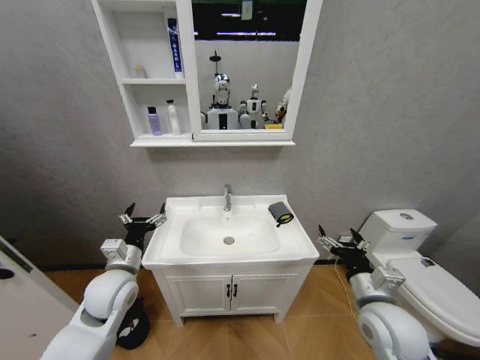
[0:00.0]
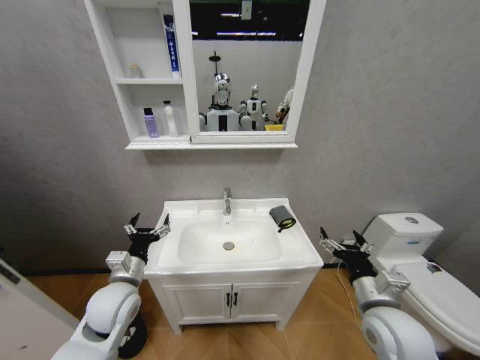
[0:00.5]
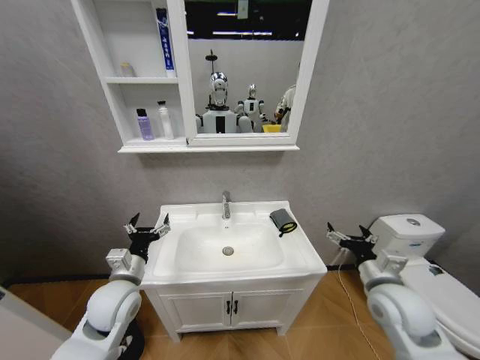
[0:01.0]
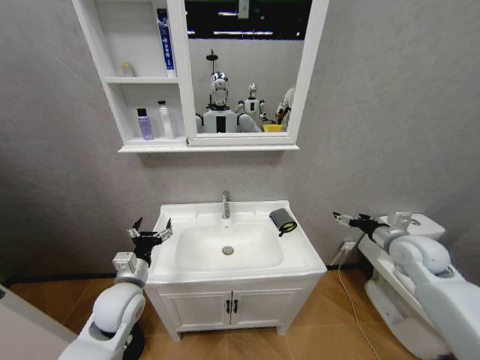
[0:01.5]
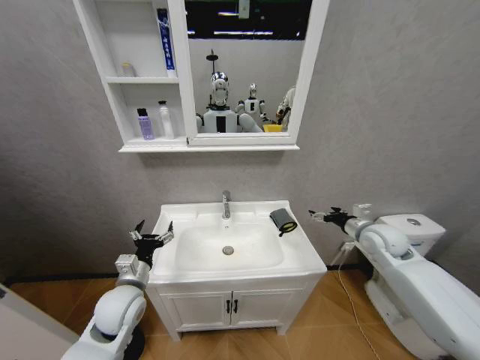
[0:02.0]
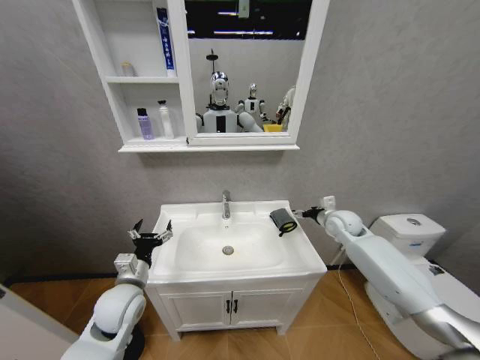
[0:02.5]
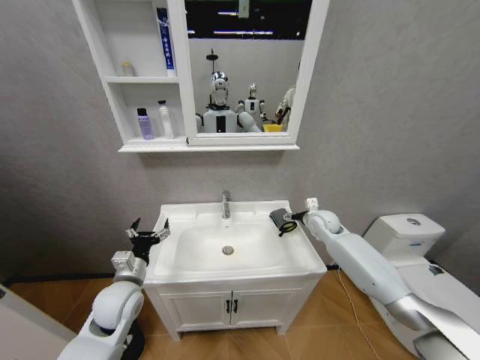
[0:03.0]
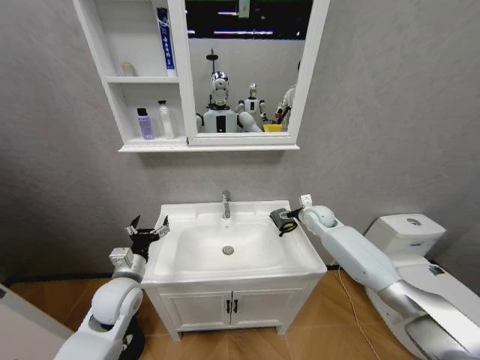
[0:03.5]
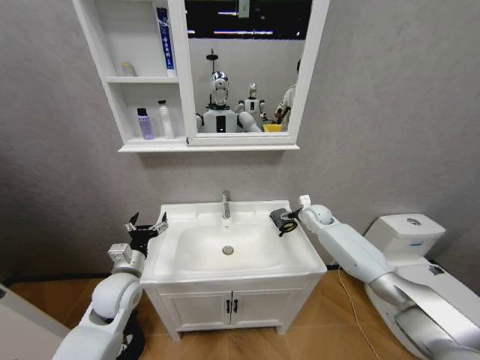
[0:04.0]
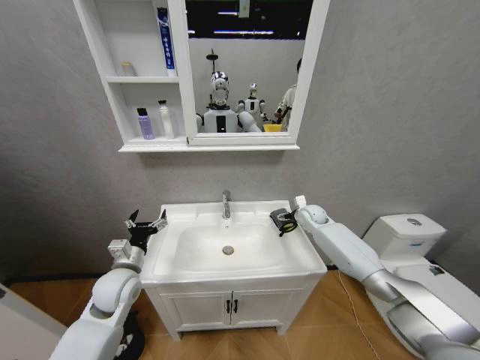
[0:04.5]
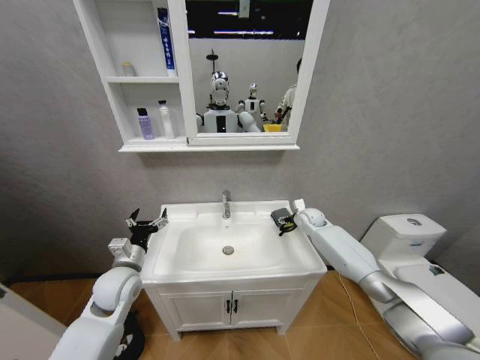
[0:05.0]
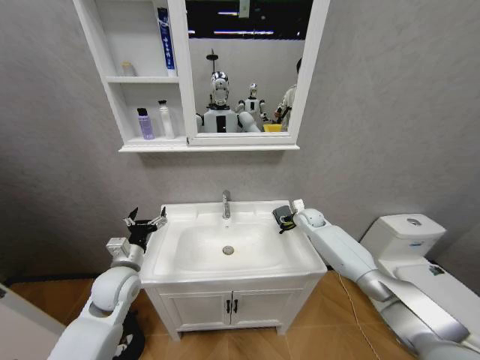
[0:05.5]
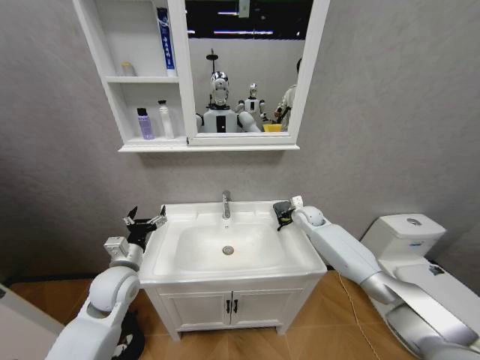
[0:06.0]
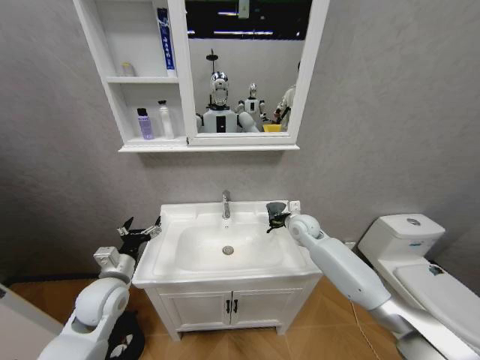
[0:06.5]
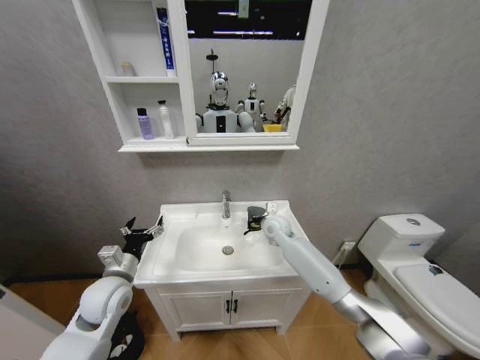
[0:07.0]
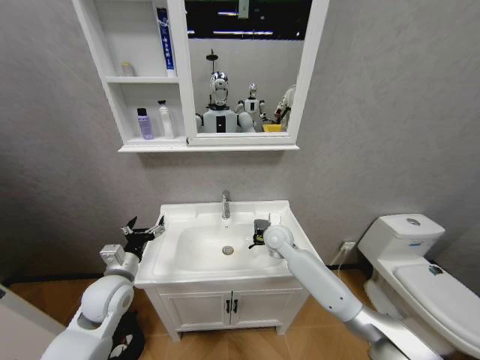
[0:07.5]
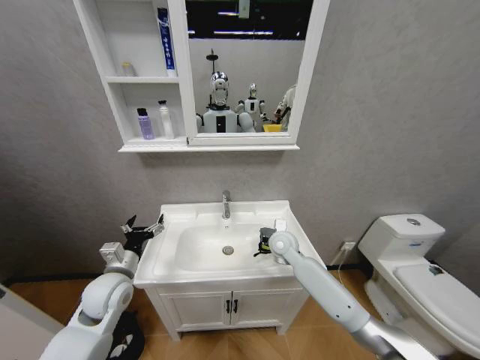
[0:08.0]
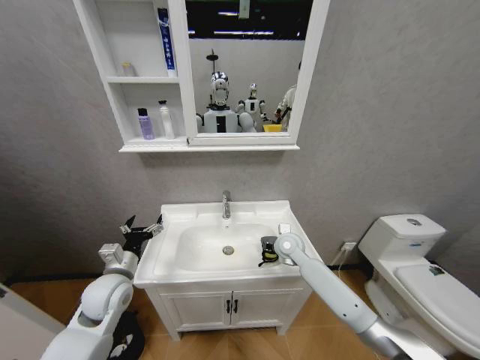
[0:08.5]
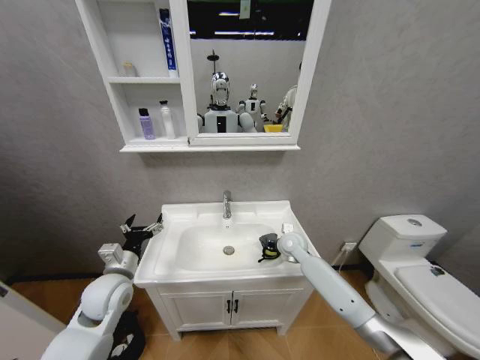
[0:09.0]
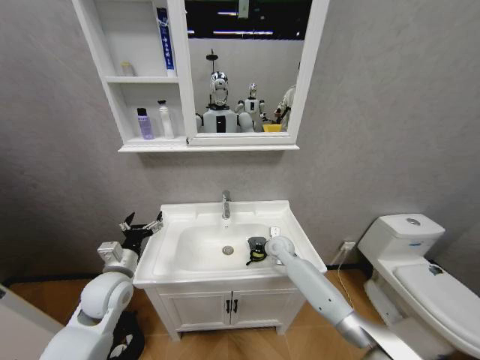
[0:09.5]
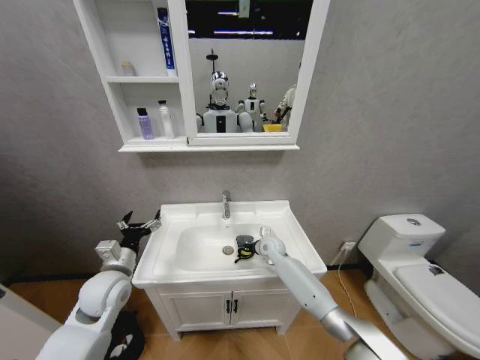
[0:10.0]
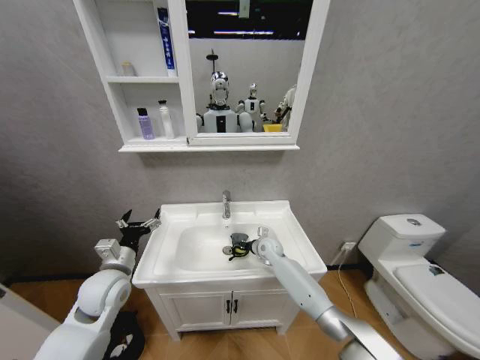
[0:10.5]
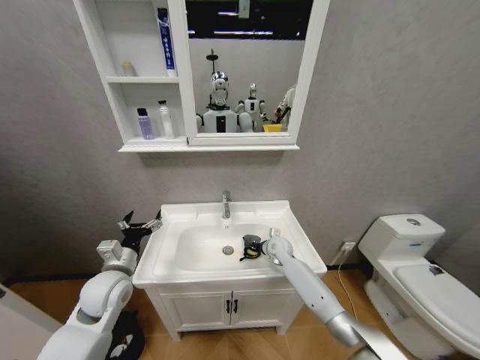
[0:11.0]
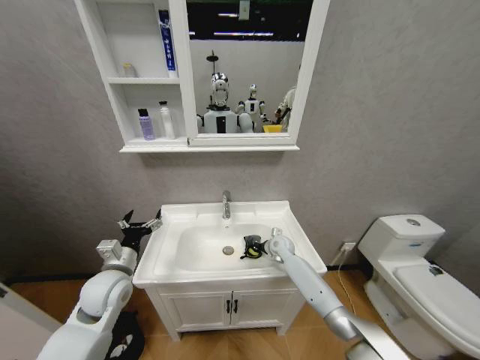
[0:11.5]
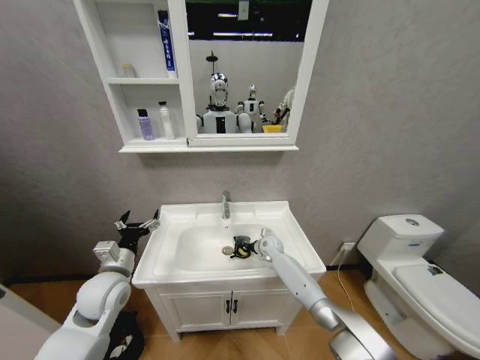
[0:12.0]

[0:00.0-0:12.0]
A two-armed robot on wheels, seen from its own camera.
Task of the whole recording: Move facial cleanser and shampoo from washbasin to cabinet, then wipe washbasin with towel.
0:00.0 to 0:02.0: The right gripper goes about 20 cm forward and to the right.
0:02.0 to 0:04.0: The right gripper shifts some 20 cm forward and to the left.
0:04.0 to 0:06.0: The right gripper closes.
0:06.0 to 0:08.0: The right gripper is displaced to the left and backward by approximately 20 cm.
0:08.0 to 0:10.0: The right gripper moves downward and forward, about 10 cm.
0:10.0 to 0:12.0: The grippers stay close to where they were, moving slightly.

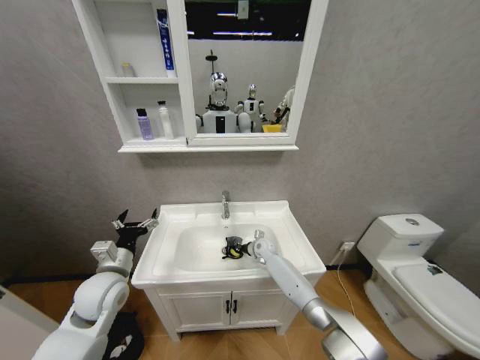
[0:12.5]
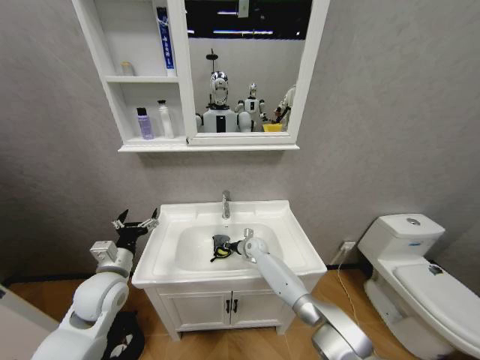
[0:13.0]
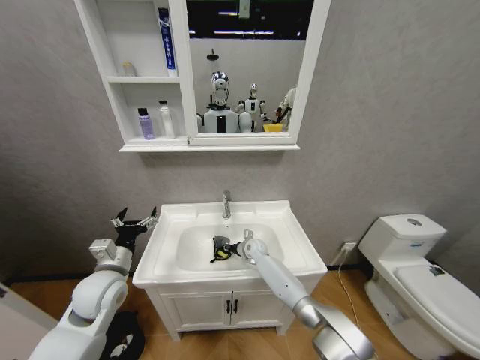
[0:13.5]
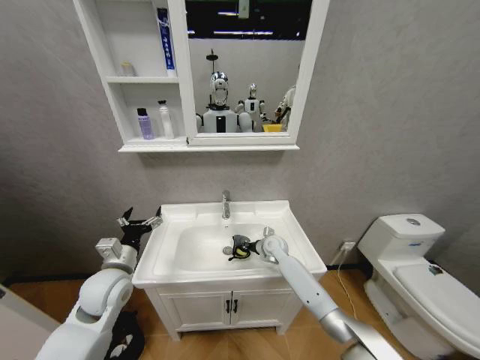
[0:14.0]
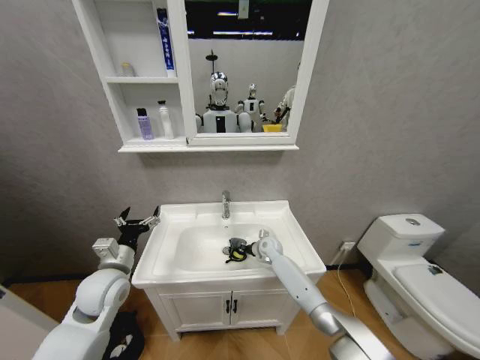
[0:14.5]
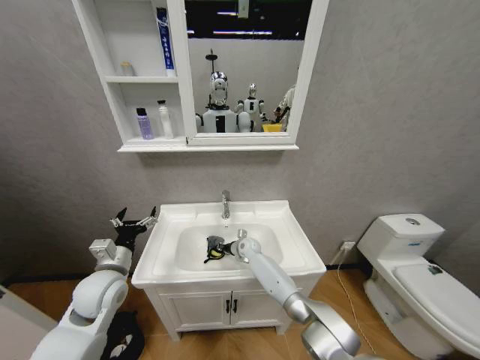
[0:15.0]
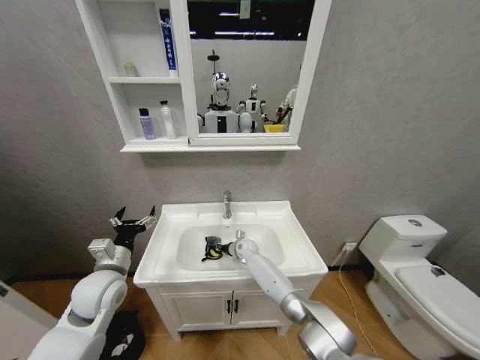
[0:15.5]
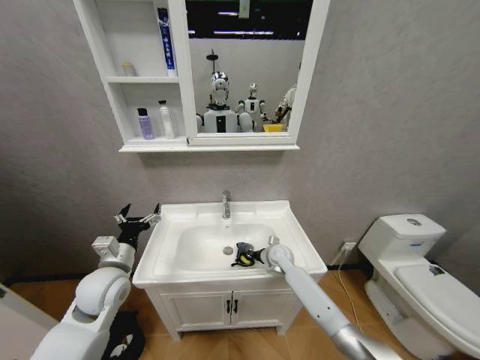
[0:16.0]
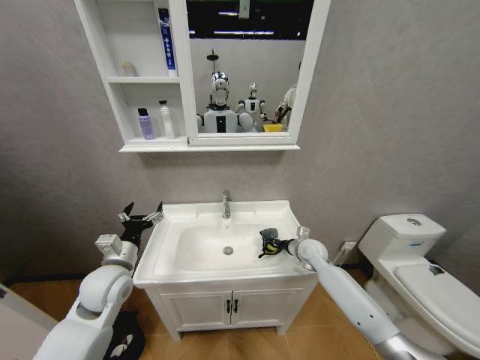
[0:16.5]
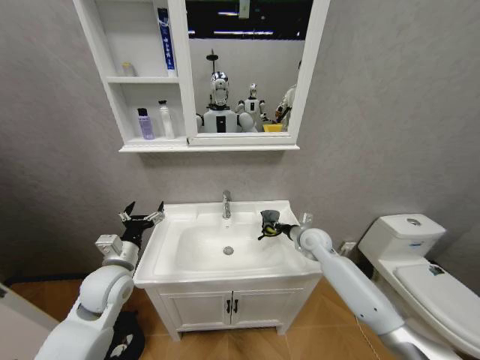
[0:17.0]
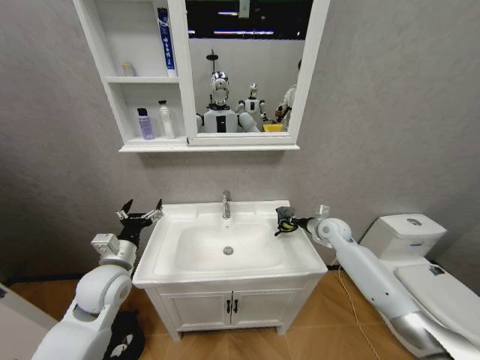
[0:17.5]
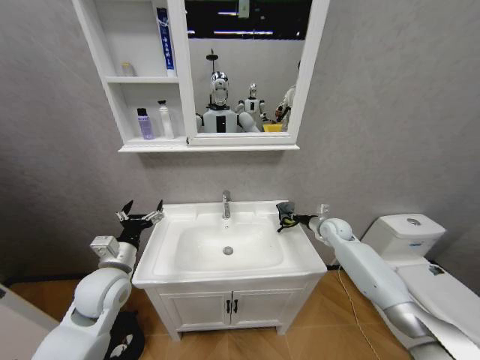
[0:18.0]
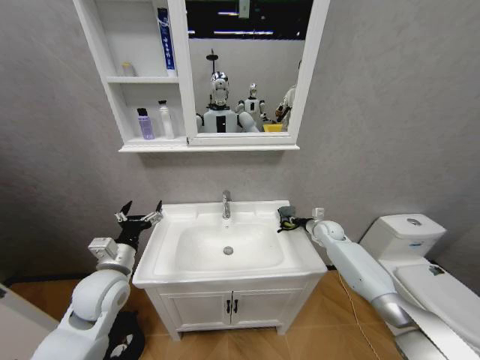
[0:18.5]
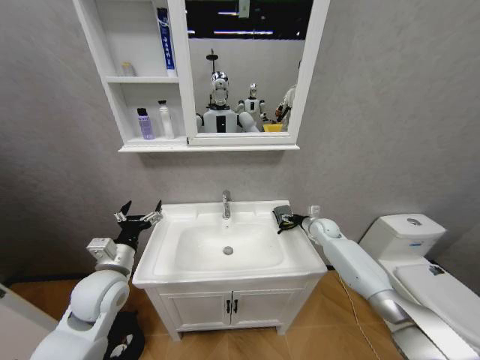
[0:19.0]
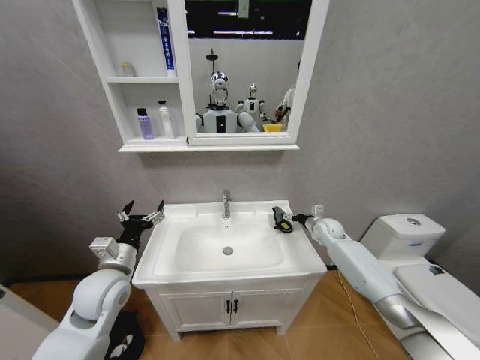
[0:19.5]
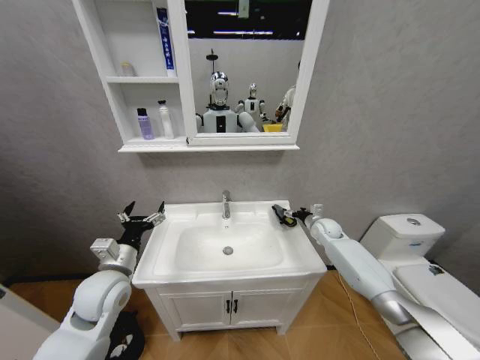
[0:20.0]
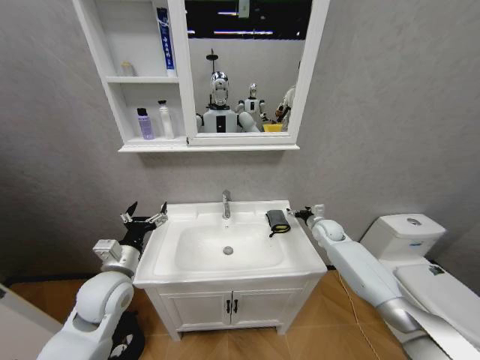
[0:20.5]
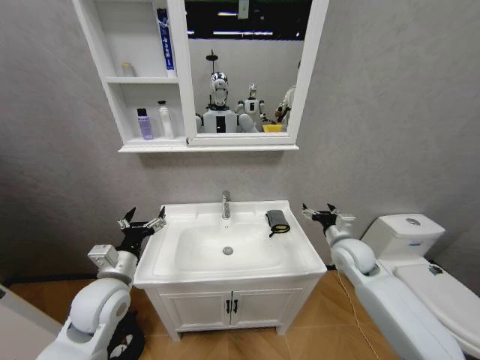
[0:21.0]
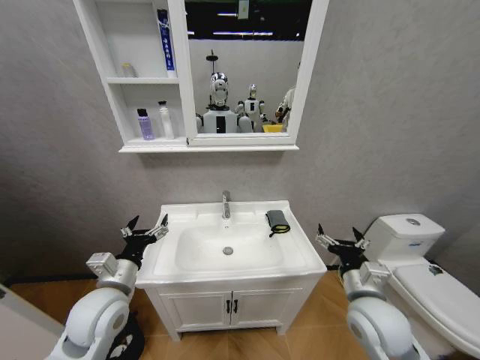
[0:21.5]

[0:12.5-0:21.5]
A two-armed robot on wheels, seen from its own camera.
Task of the whole recording: Move facial cleanser and shampoo from washbasin to cabinet, then wipe washbasin with towel.
0:14.5 to 0:17.0: The right gripper is displaced upward and to the right by approximately 20 cm.
0:17.0 to 0:19.5: The right gripper moves to the right and forward, approximately 10 cm, and opens up.
0:19.5 to 0:21.5: The right gripper goes about 30 cm backward.

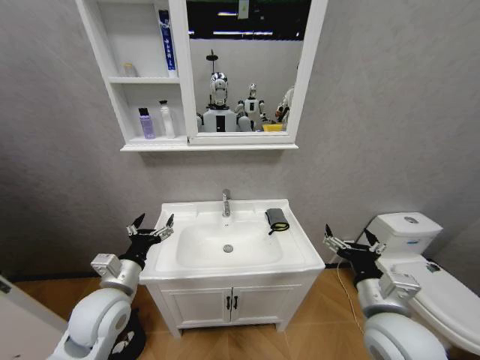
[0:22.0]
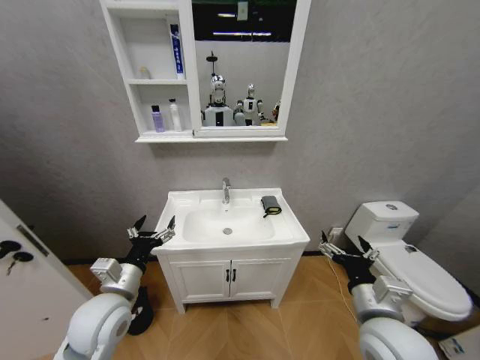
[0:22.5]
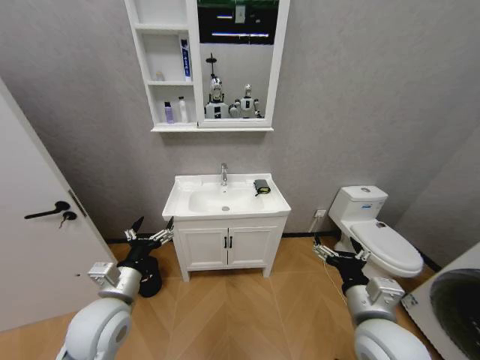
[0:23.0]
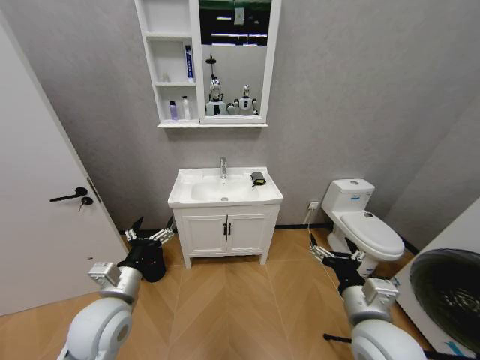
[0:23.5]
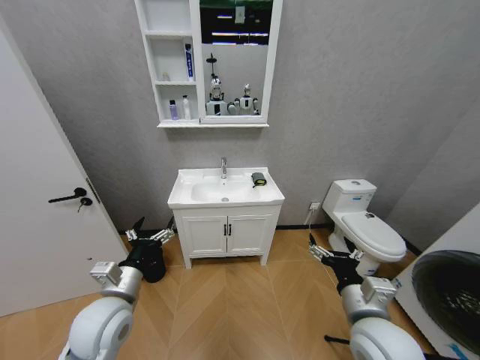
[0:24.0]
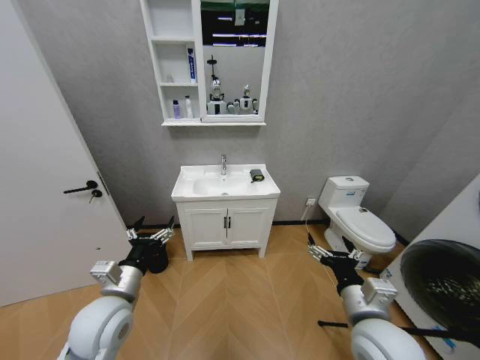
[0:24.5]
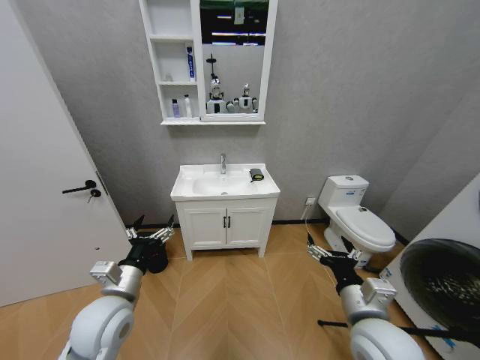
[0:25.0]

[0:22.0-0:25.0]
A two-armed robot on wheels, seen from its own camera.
Task of the whole recording: Move facial cleanser and shampoo from washbasin to cabinet, then wipe washbasin with towel.
0:23.5 to 0:25.0: The two grippers keep their place.

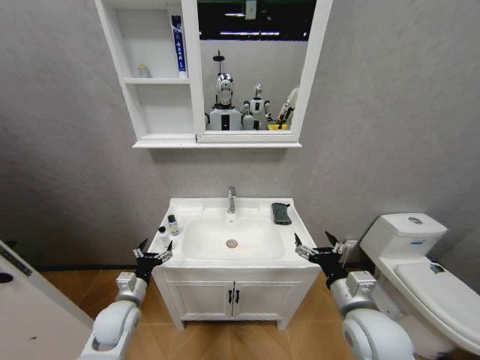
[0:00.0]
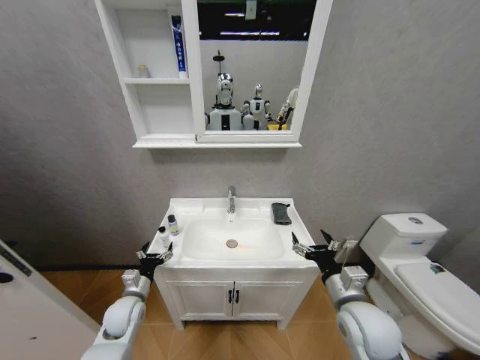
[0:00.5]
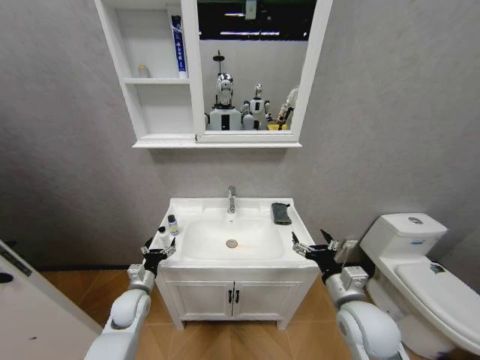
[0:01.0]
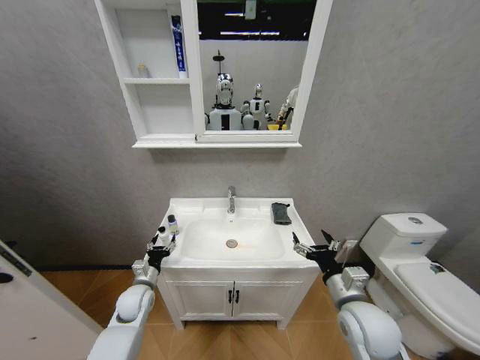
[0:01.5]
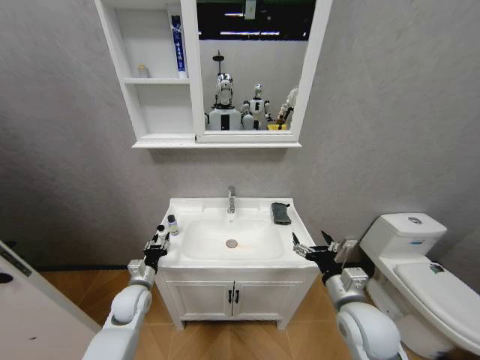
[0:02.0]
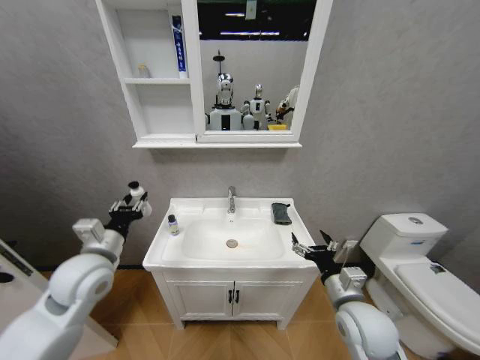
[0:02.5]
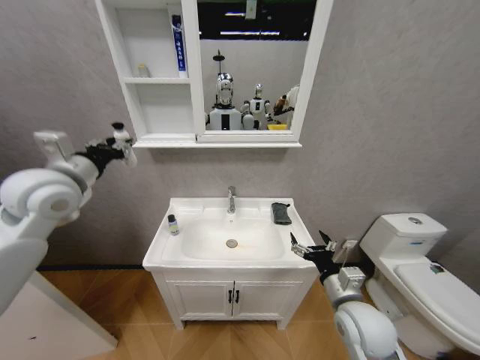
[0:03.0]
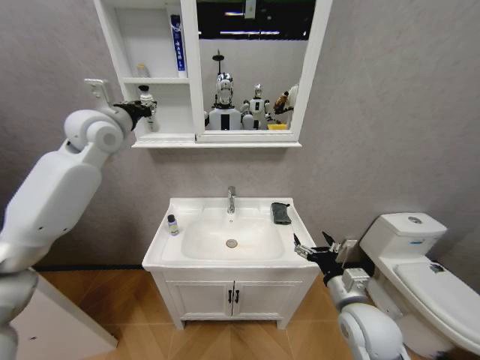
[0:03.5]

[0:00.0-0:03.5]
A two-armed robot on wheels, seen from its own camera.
Task of the whole recording: Move facial cleanser and shampoo from washbasin to cabinet, then wipe washbasin with towel.
0:00.0 to 0:02.0: The left gripper travels forward by about 5 cm, and closes up.
0:02.0 to 0:03.5: The left gripper moves upward, some 40 cm.
